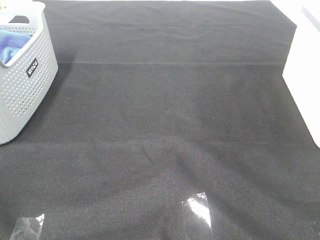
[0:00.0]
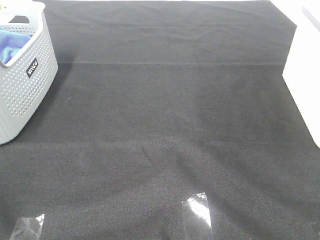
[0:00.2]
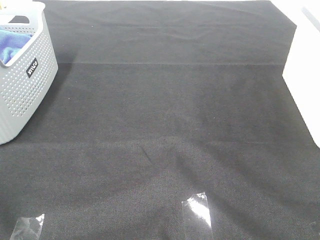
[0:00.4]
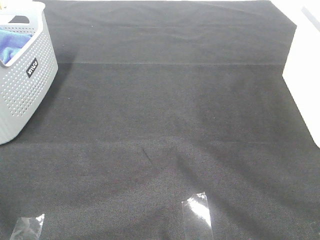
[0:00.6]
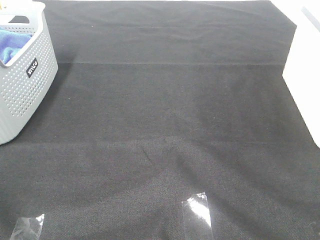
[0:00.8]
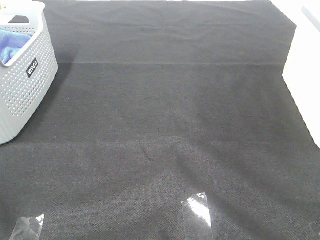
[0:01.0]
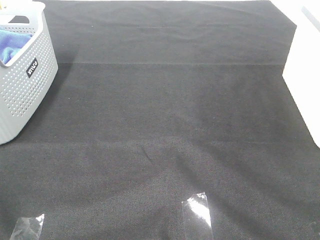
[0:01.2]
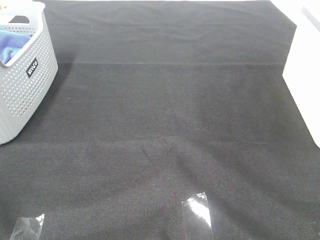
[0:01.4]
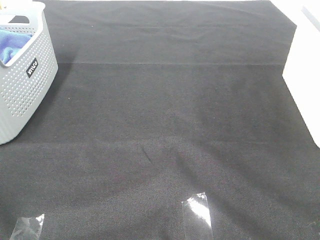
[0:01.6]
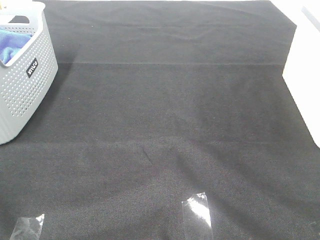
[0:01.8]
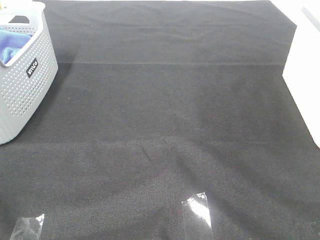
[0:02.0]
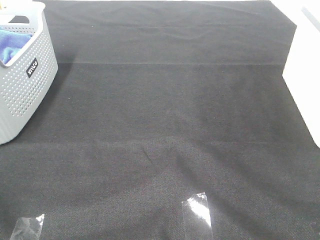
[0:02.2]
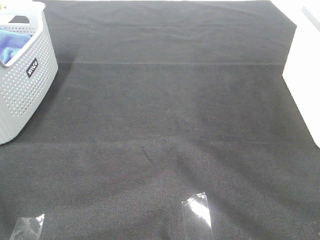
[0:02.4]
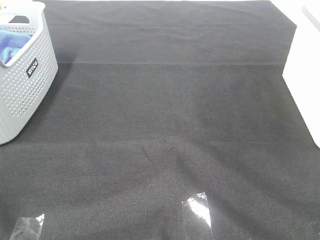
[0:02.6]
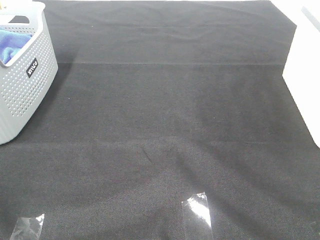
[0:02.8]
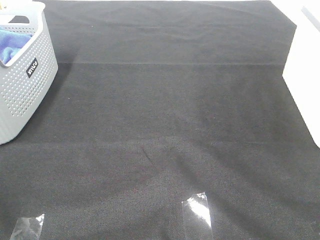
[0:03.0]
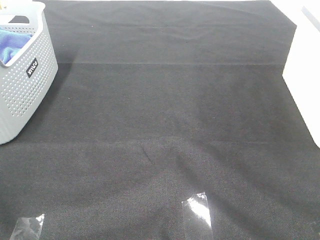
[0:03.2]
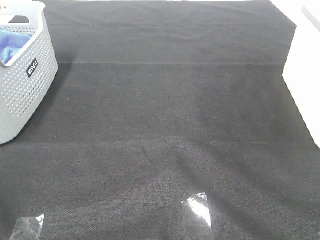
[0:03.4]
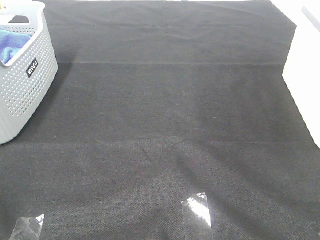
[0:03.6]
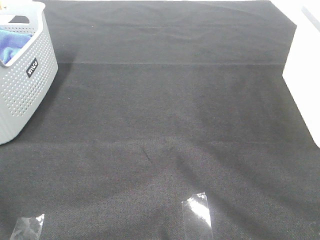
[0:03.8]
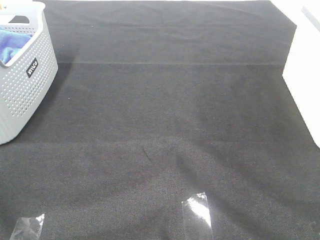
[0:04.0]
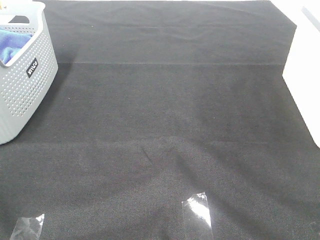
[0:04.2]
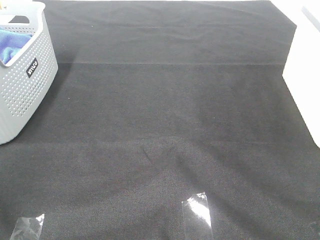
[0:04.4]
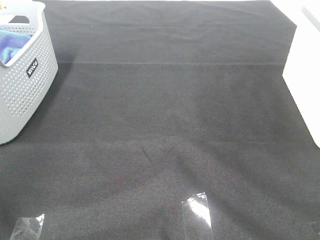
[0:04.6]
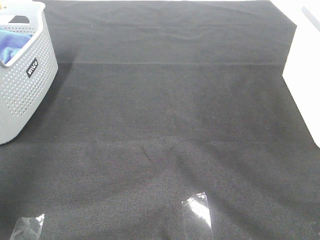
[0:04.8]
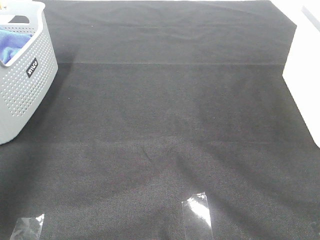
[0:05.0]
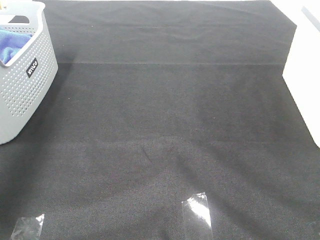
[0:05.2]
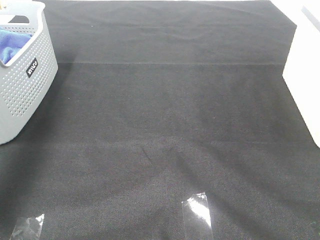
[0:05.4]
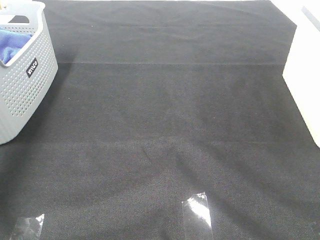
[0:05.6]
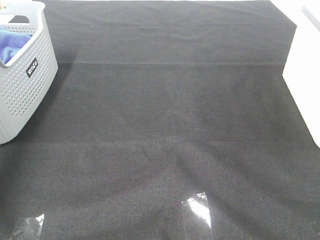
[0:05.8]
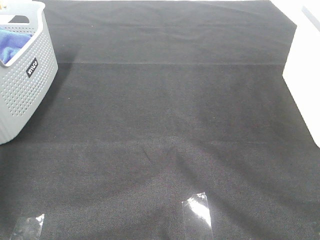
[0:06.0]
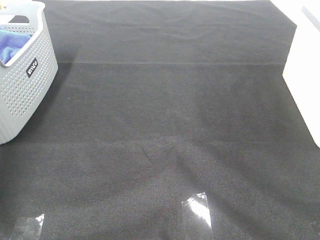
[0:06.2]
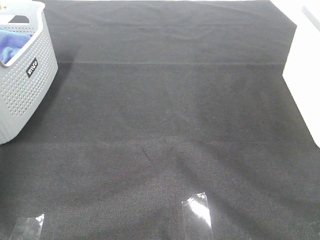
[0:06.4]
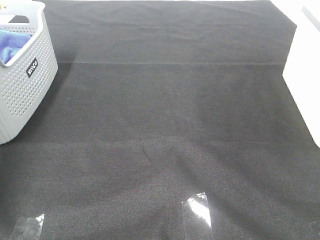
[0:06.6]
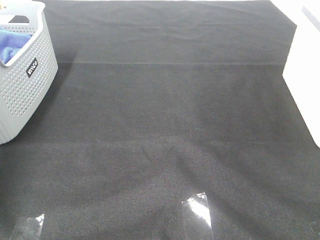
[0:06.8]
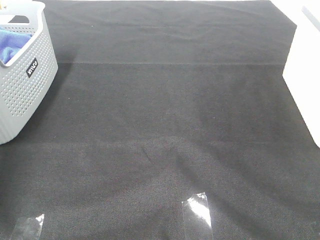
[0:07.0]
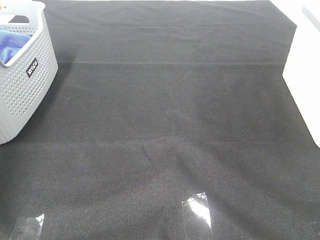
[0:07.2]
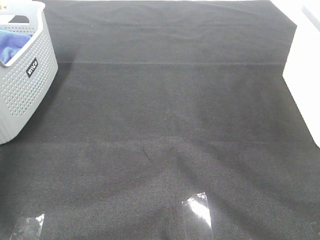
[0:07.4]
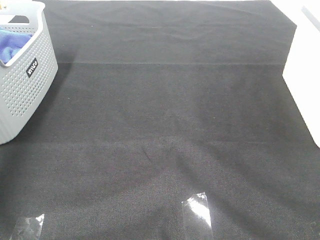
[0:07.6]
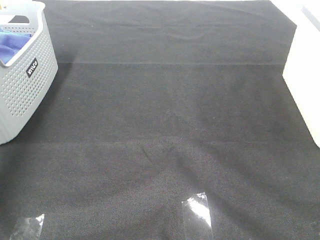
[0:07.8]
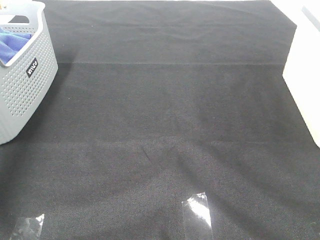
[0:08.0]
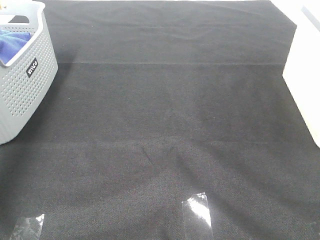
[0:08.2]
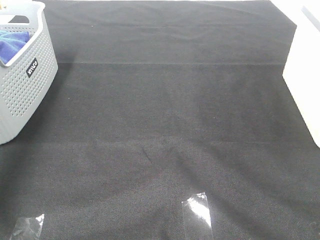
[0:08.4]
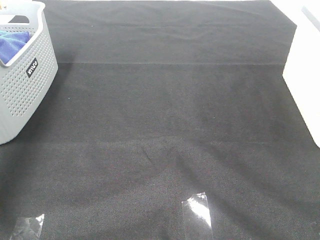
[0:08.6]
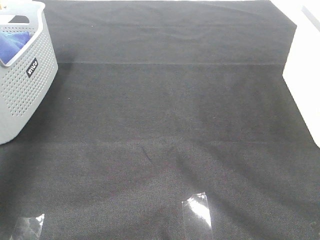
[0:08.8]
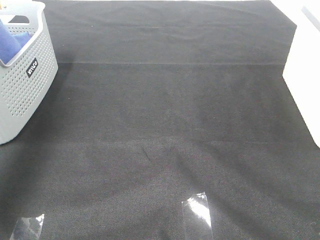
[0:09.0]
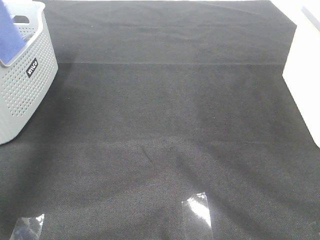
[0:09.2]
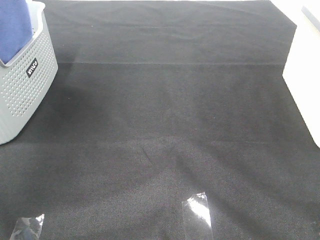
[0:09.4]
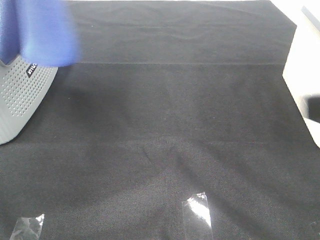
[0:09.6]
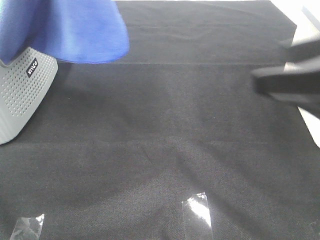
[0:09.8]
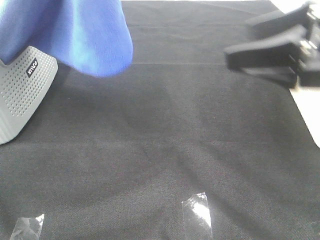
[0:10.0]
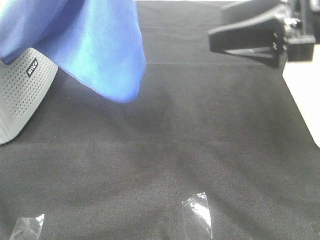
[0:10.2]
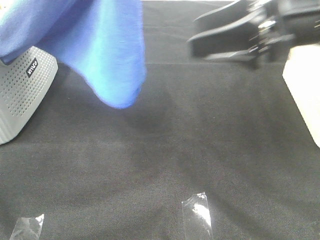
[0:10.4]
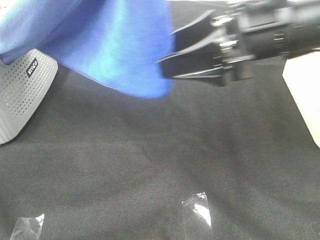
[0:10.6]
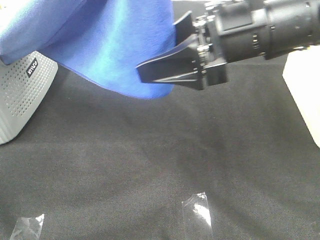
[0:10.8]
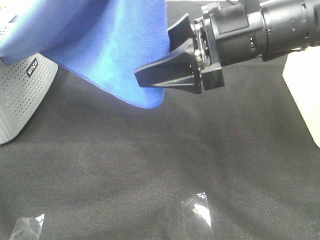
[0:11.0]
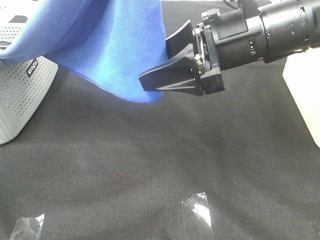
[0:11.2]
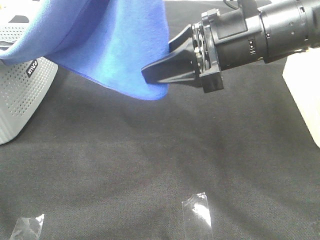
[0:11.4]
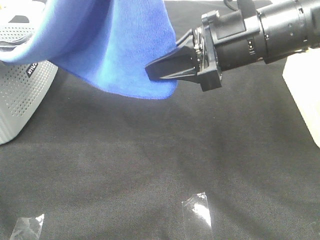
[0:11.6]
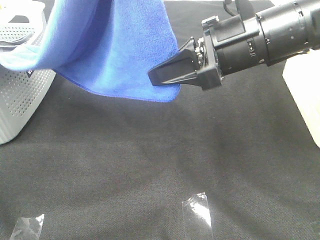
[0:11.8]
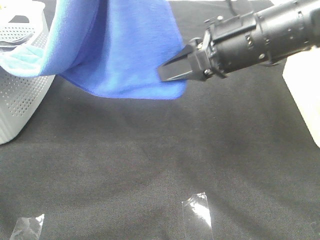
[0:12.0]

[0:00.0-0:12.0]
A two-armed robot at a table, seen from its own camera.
Task of the whole recording: Remove the towel and place it.
0:00.0 to 0:03.0: Both grippers stay put.
0:04.4 to 0:06.0: The left gripper moves forward, some 40 cm.
0:07.6 to 0:09.0: The left gripper travels upward, backward and to the right by roughly 20 cm.
0:09.0 to 0:10.4: The left gripper is displaced to the right by approximately 25 cm, while the right gripper travels forward and to the left by roughly 30 cm.
0:10.4 to 0:12.0: The right gripper ends up approximately 5 cm from where it was, and closes.

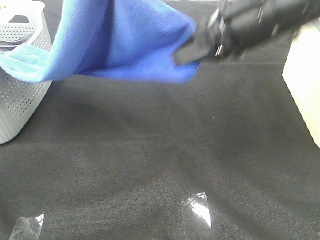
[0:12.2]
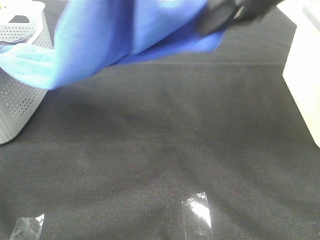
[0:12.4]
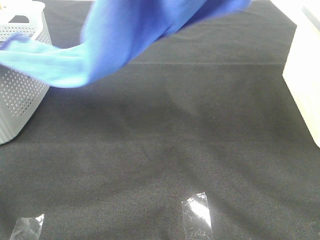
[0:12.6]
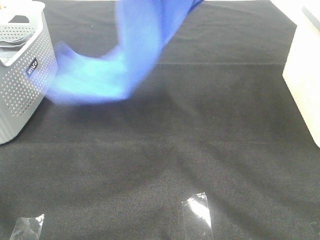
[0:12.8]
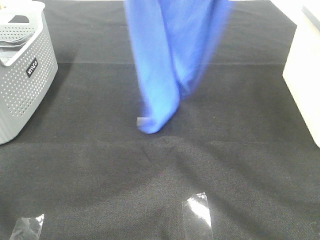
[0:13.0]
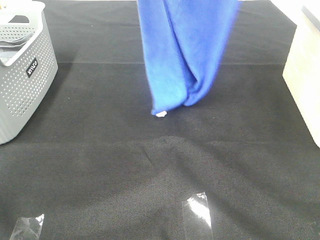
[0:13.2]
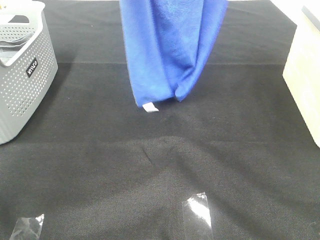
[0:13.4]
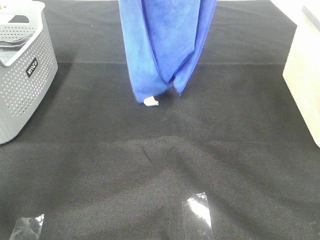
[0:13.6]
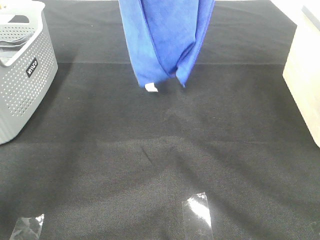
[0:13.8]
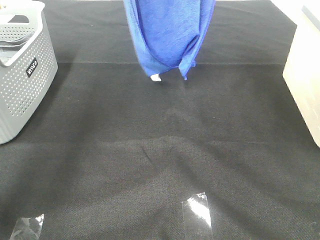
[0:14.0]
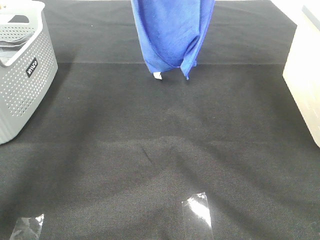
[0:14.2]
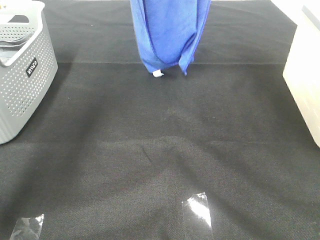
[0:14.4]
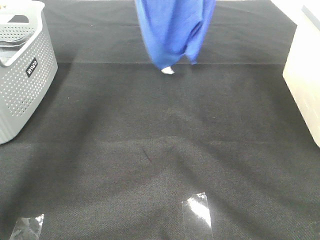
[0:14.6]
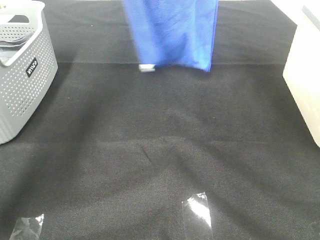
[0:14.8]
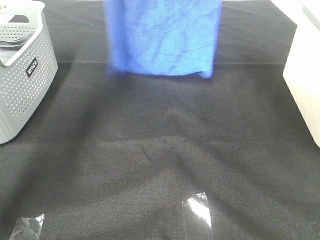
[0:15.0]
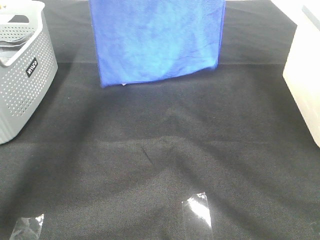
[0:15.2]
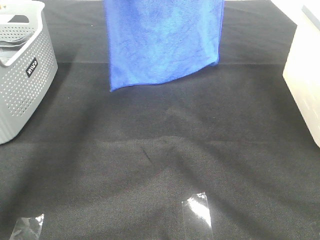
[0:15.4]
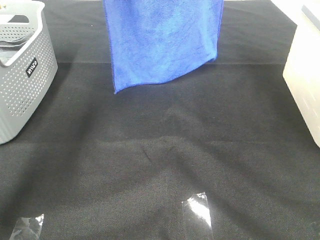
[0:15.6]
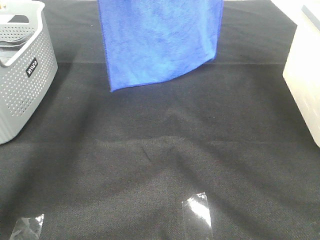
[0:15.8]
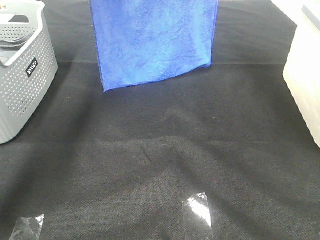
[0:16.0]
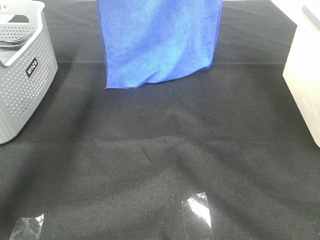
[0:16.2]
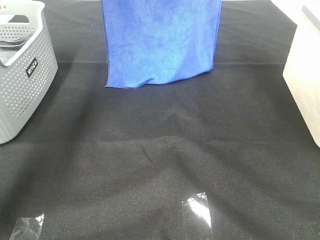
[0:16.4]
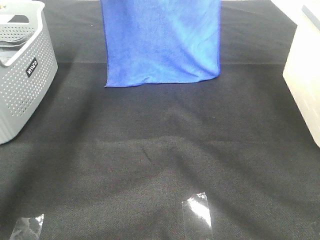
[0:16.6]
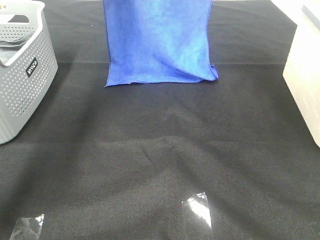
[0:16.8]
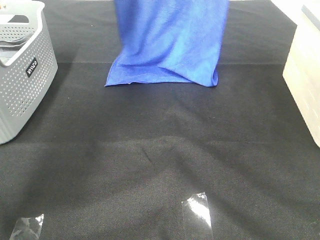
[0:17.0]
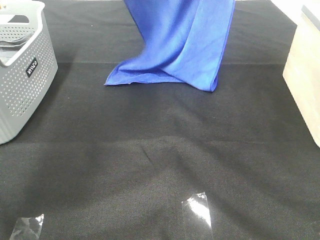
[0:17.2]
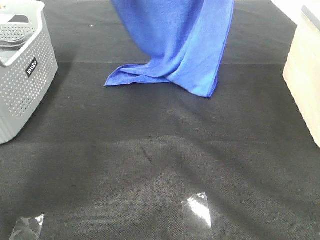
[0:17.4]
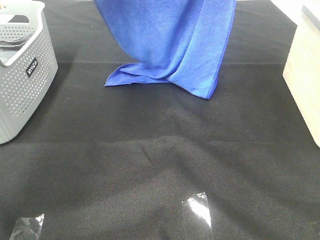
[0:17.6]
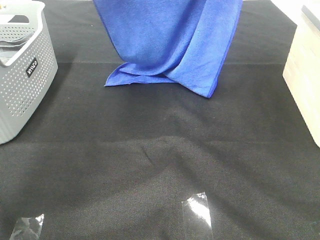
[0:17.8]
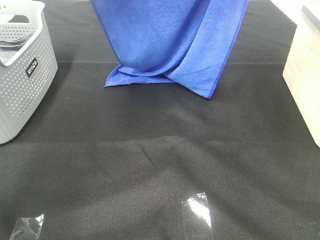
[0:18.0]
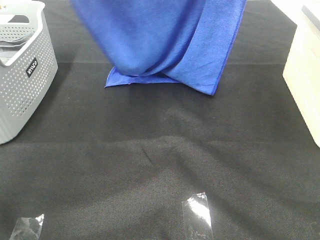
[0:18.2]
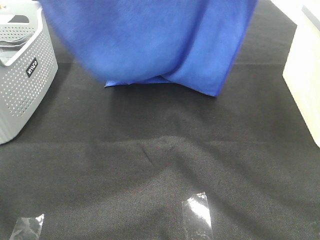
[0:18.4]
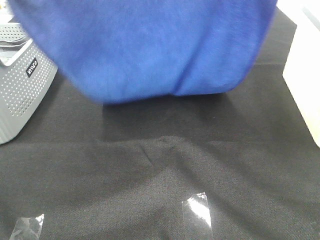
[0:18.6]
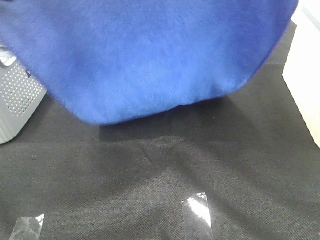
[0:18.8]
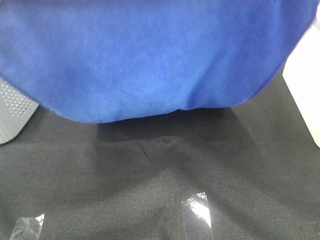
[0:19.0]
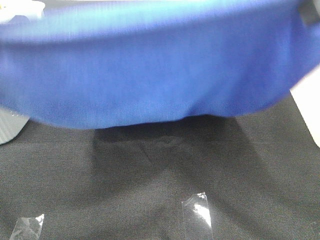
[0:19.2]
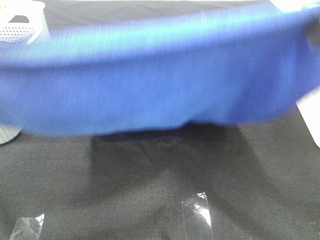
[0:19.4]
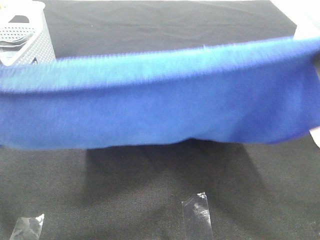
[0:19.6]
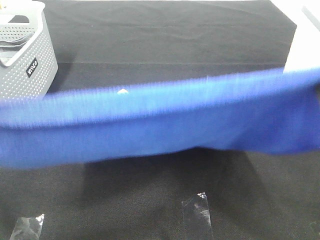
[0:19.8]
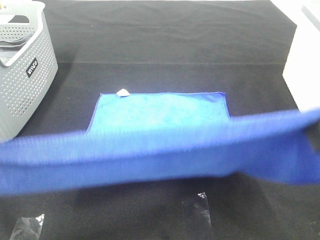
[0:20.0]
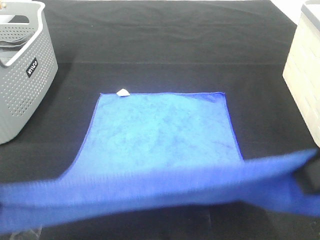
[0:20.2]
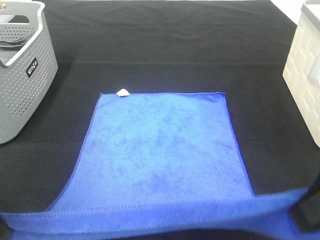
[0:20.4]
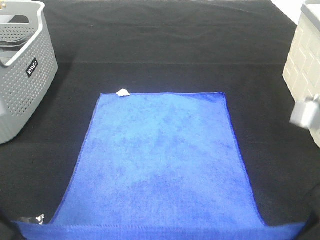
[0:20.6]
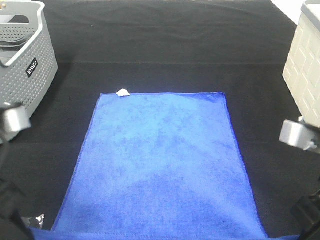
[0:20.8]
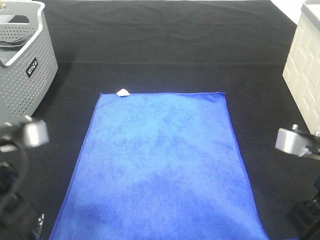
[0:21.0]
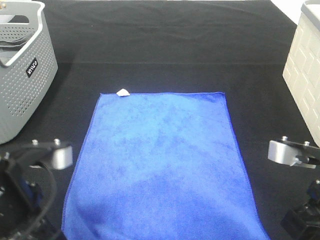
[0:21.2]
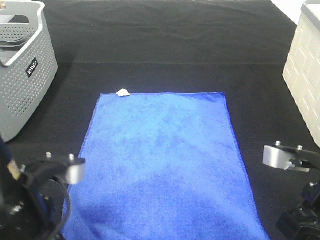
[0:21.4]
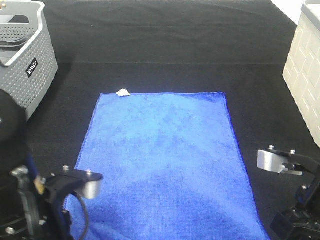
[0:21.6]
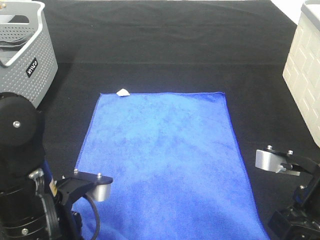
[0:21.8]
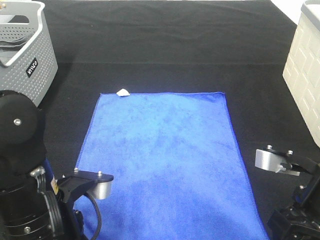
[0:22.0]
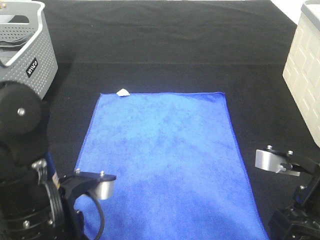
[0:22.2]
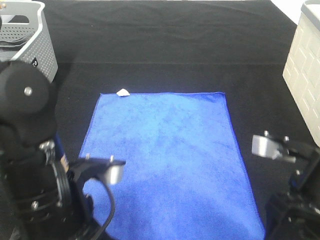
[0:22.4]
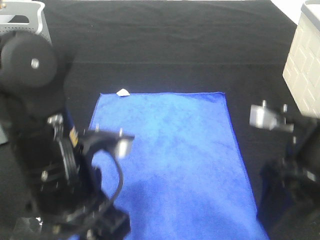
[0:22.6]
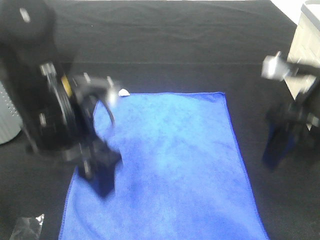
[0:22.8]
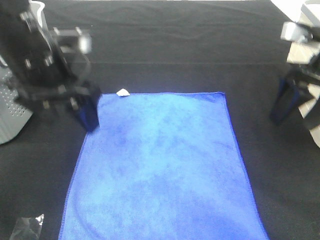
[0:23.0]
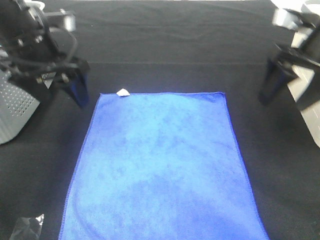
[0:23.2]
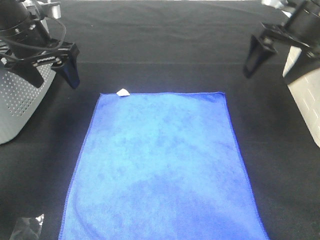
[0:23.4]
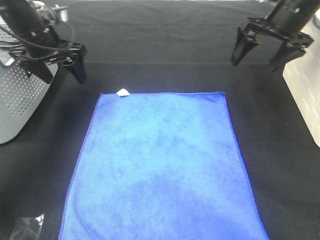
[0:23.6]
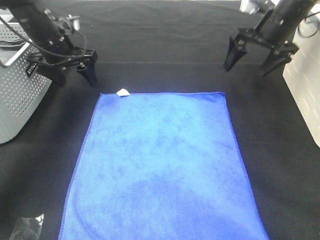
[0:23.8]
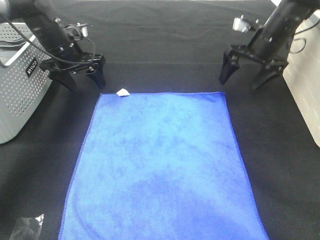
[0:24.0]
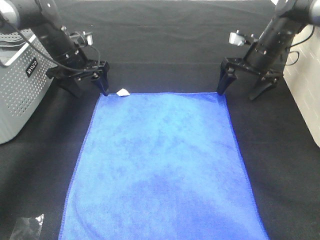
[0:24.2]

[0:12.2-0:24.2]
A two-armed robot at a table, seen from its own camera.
Task of the whole recording: Remove the towel and place it.
Step, 0:12.4 to 0:17.8: Left hand: spread the blue towel flat on the table.
Step, 0:12.4 to 0:17.8: Right hand: spread the blue towel flat on the table.
0:12.2 to 0:13.8: The left gripper goes roughly 20 cm forward. The right gripper moves upward and forward, roughly 25 cm.
0:13.8 to 0:15.2: Both grippers move forward, roughly 5 cm.
0:15.2 to 0:16.6: The grippers make only small movements.
0:16.6 to 0:18.2: Both grippers travel together backward, about 15 cm.
0:18.2 to 0:19.8: The grippers both shift backward by some 25 cm.
0:19.8 to 0:21.2: The two grippers go approximately 20 cm downward.
0:21.2 to 0:22.6: The left gripper heads to the right, covering some 5 cm, and opens its fingers. The right gripper shifts some 5 cm forward, and opens its fingers.
0:22.6 to 0:24.2: The grippers both shift forward by roughly 30 cm.
